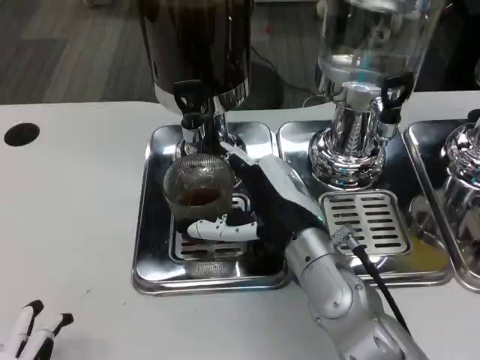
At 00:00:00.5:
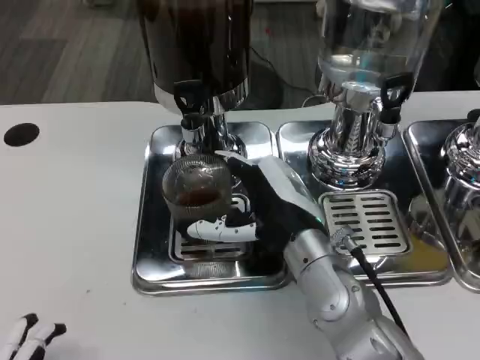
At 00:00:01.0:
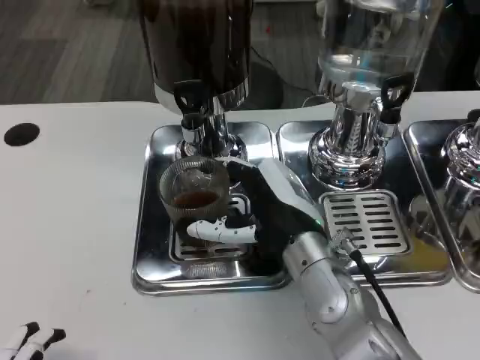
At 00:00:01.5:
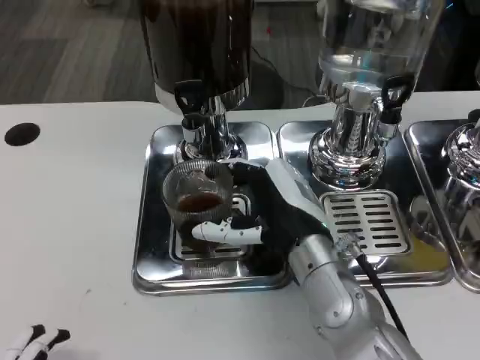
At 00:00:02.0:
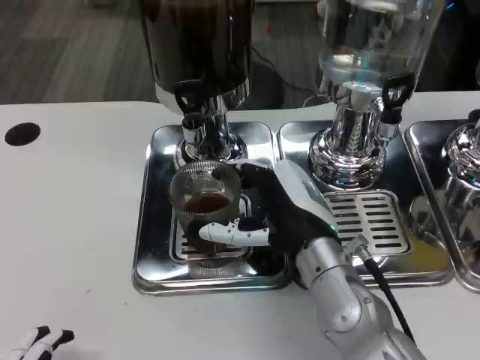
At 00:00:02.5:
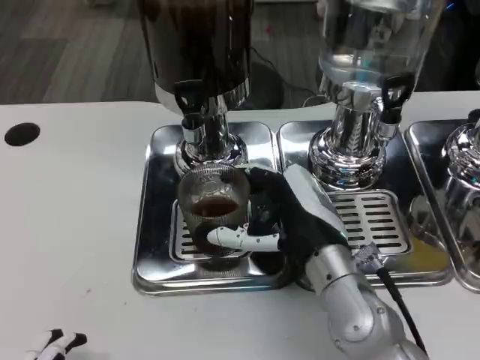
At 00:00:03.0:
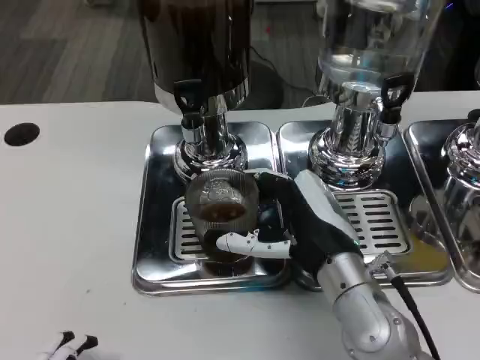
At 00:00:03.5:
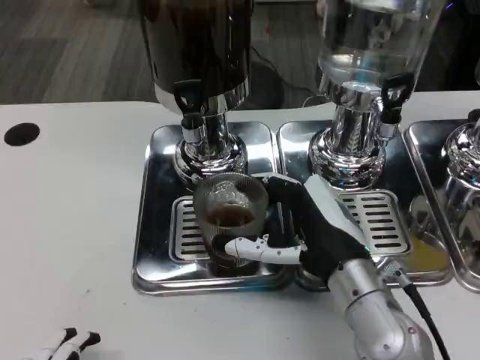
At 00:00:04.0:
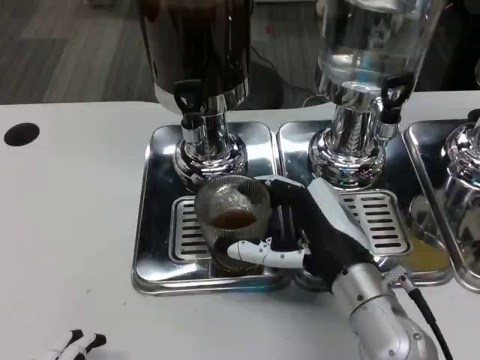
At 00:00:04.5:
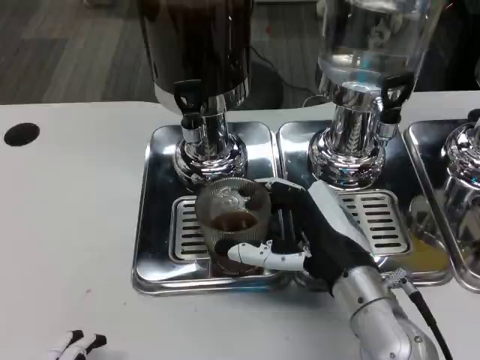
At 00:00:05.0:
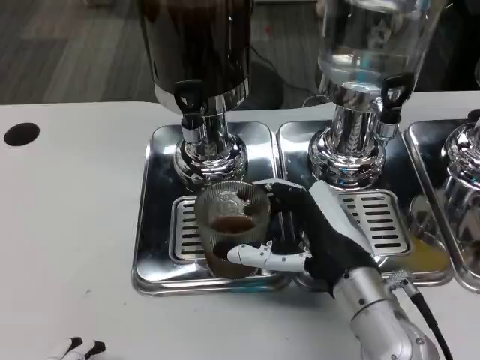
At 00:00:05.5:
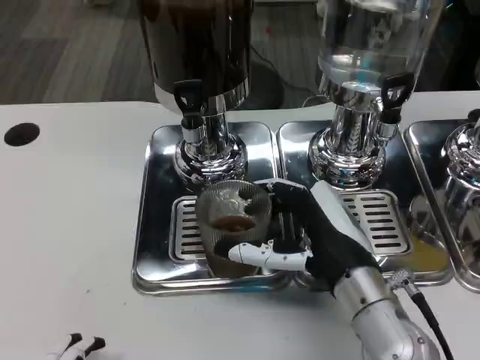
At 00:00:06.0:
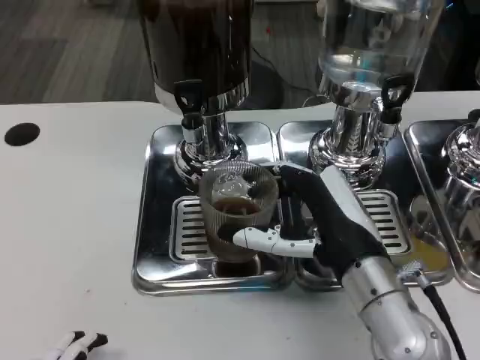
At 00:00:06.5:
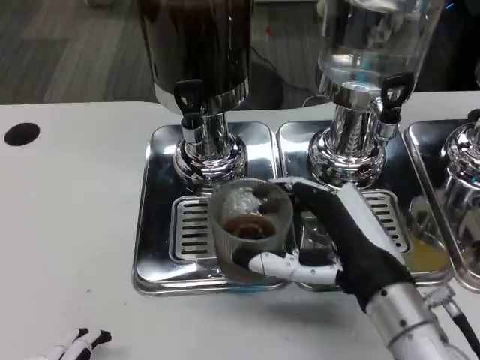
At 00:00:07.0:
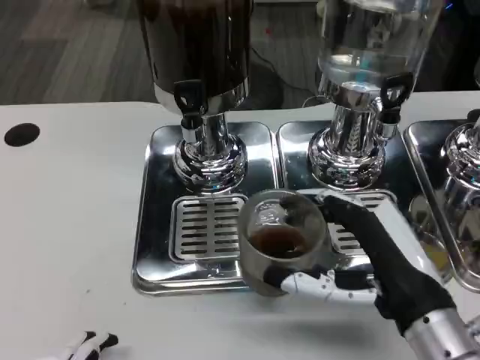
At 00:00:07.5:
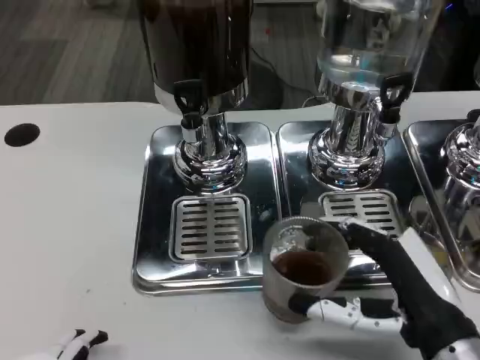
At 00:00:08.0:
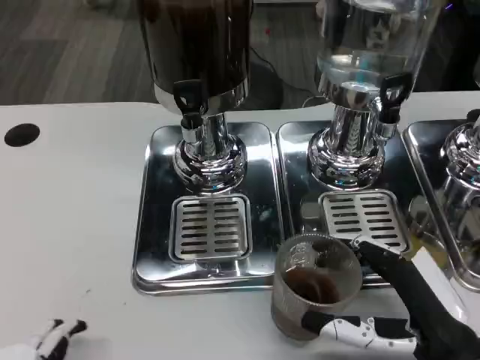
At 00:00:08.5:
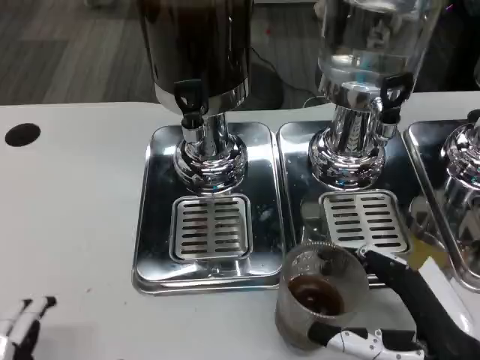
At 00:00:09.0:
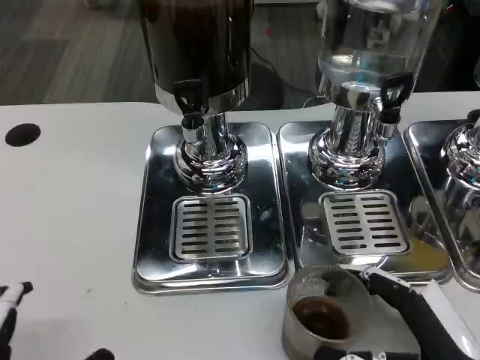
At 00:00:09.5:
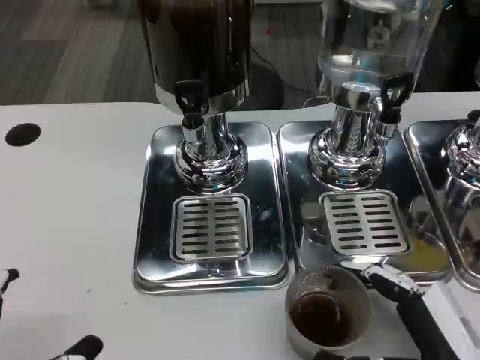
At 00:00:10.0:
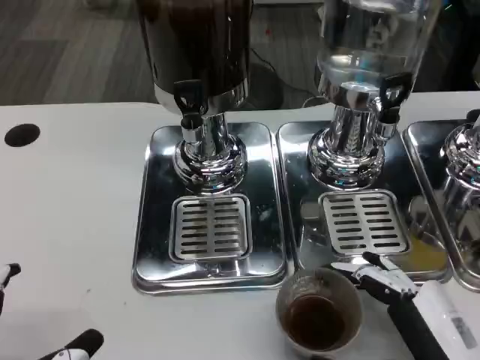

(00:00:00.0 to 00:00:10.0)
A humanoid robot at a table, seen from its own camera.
Task of the whole recording: Grasp the cup under the faucet to collect the drink, then remove the cup.
00:00:00.0 - 00:00:02.0: Both hands stay put.
00:00:02.0 - 00:00:06.0: The hands make only small movements.
00:00:06.0 - 00:00:08.0: The right hand shifts approximately 10 cm to the right and backward.
00:00:08.0 - 00:00:10.0: The hands move only a little.

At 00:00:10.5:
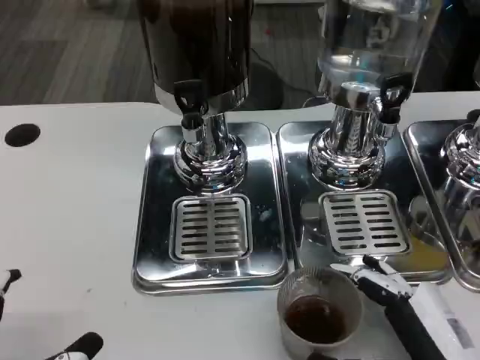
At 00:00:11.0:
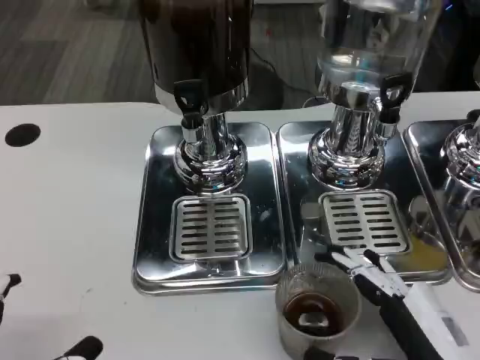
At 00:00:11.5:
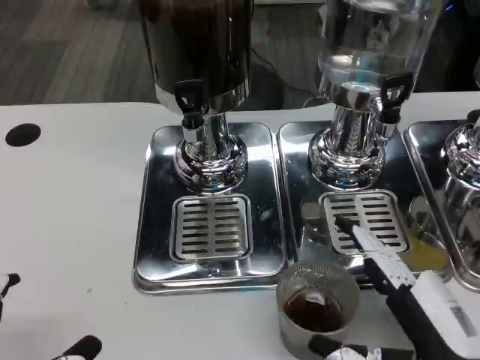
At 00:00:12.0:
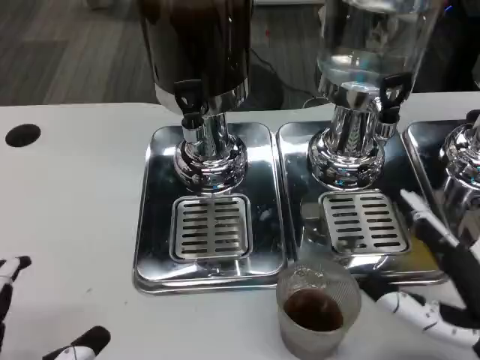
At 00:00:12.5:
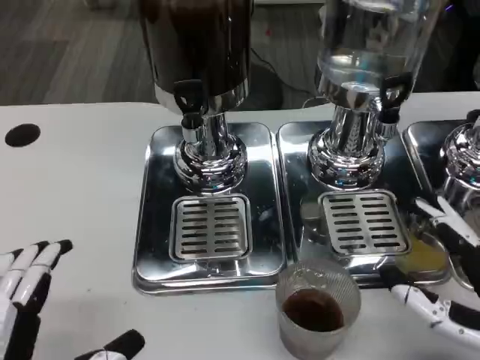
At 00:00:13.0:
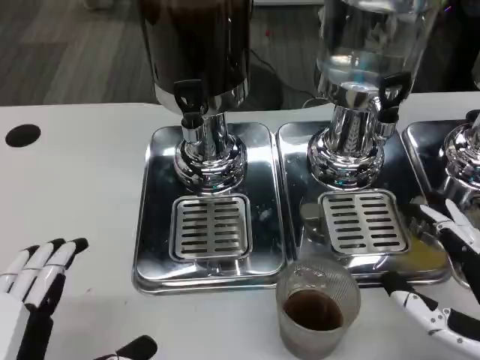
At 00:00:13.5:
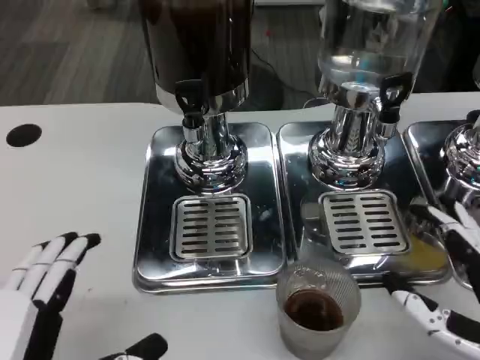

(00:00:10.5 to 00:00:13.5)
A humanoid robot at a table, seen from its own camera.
Task of the whole recording: Grasp the cup under the faucet to collect the drink, then remove the cup.
00:00:10.5 - 00:00:12.0: The right hand moves upward, about 5 cm.
00:00:12.0 - 00:00:13.5: The hands make only small movements.

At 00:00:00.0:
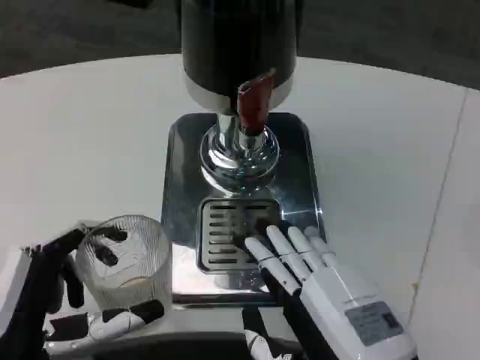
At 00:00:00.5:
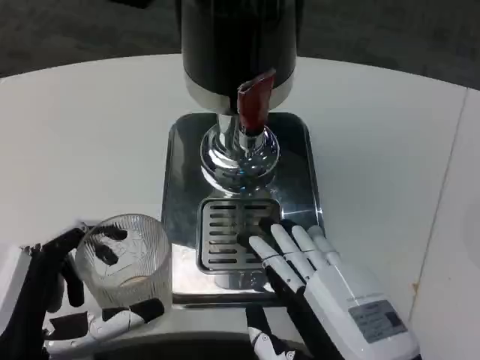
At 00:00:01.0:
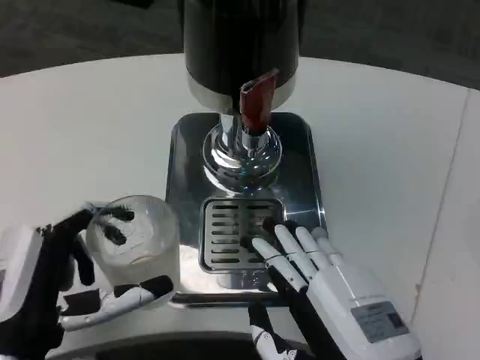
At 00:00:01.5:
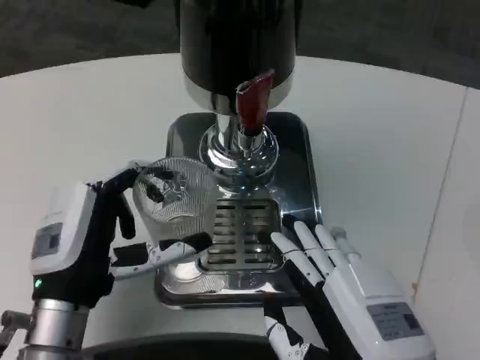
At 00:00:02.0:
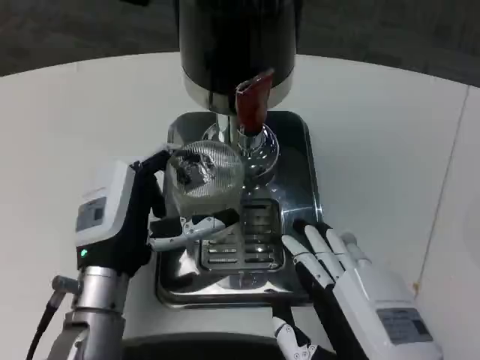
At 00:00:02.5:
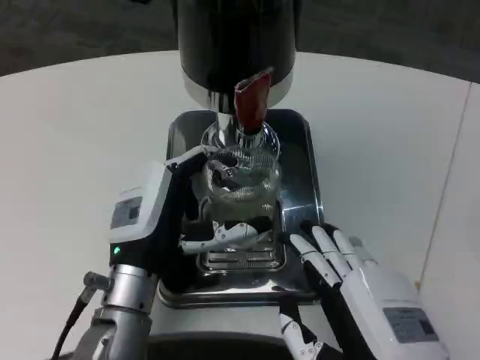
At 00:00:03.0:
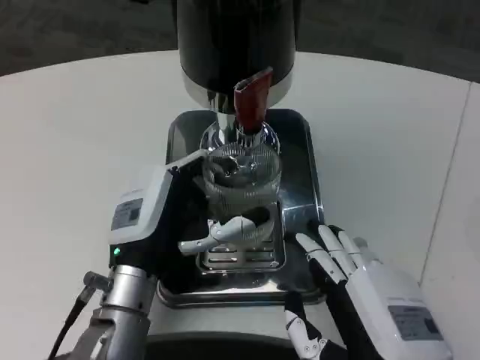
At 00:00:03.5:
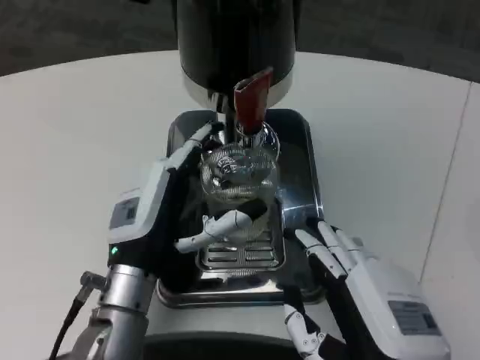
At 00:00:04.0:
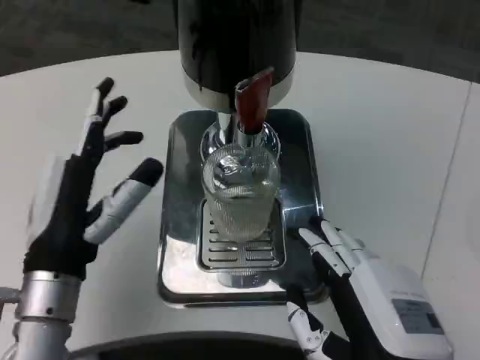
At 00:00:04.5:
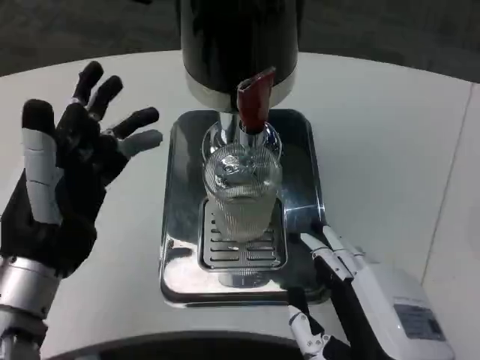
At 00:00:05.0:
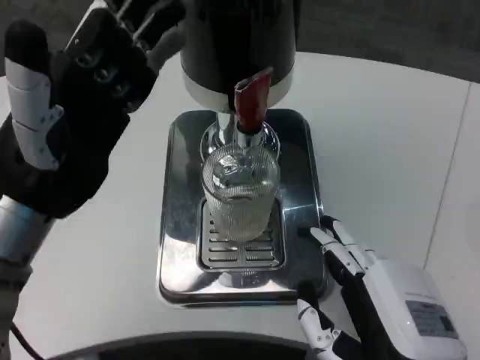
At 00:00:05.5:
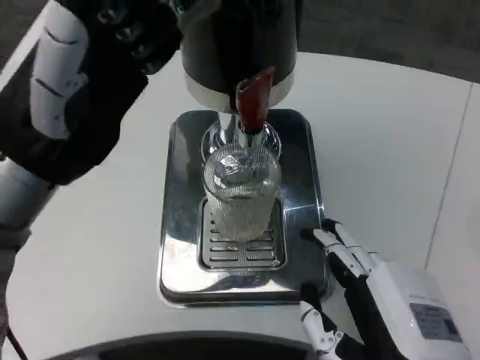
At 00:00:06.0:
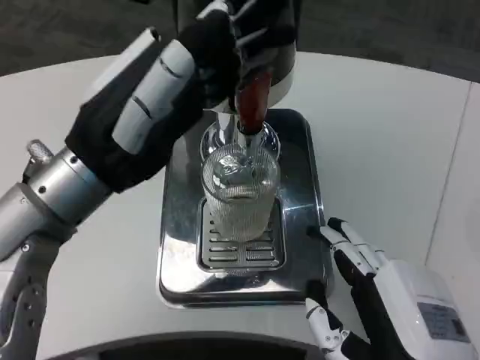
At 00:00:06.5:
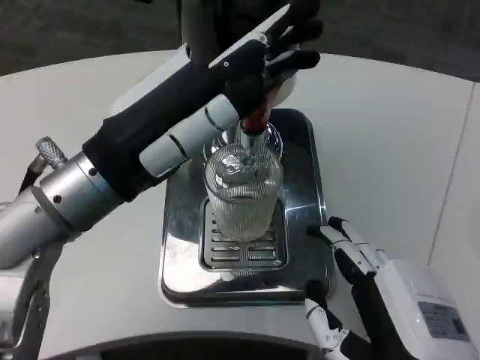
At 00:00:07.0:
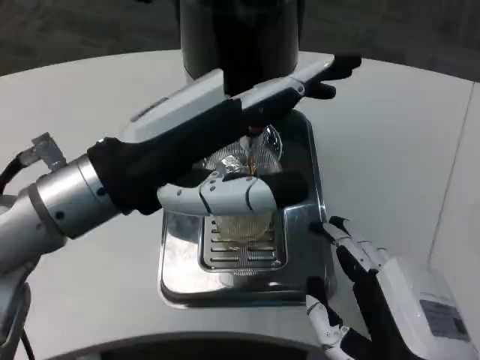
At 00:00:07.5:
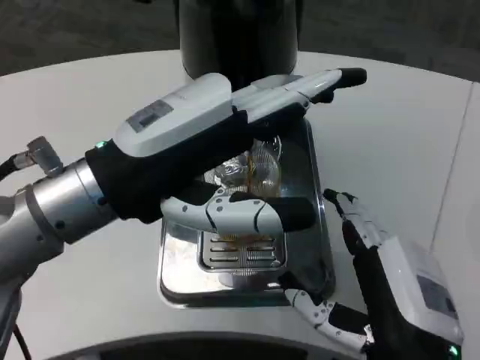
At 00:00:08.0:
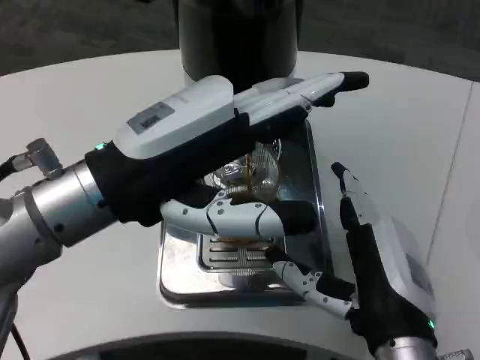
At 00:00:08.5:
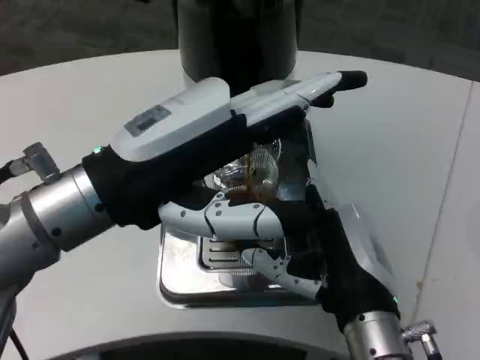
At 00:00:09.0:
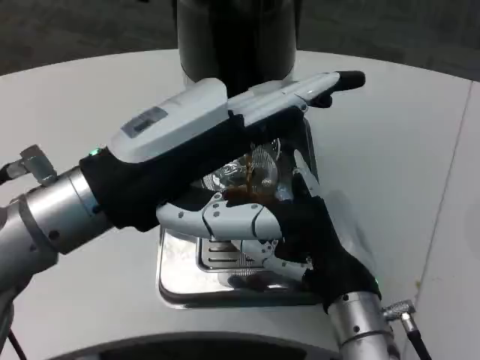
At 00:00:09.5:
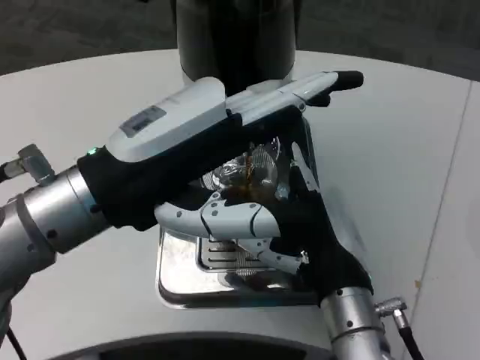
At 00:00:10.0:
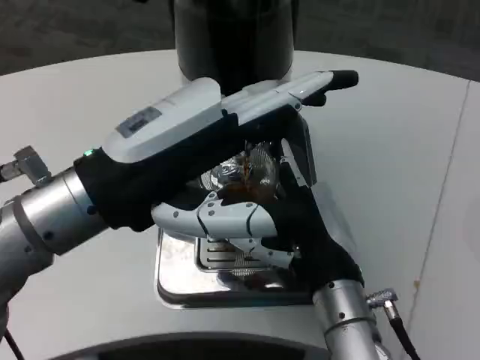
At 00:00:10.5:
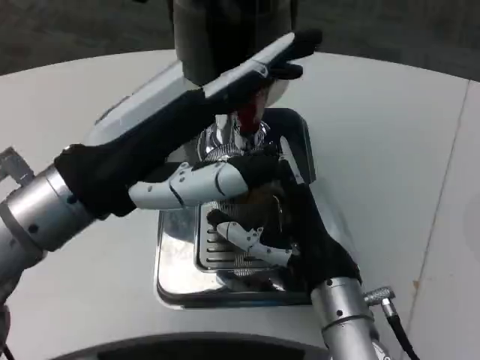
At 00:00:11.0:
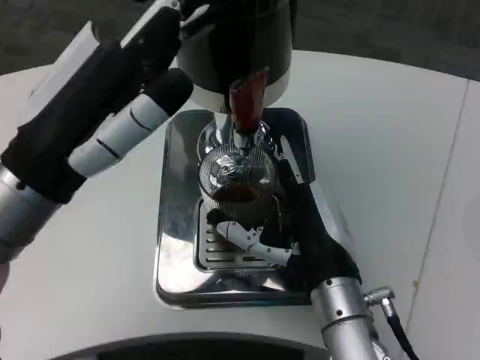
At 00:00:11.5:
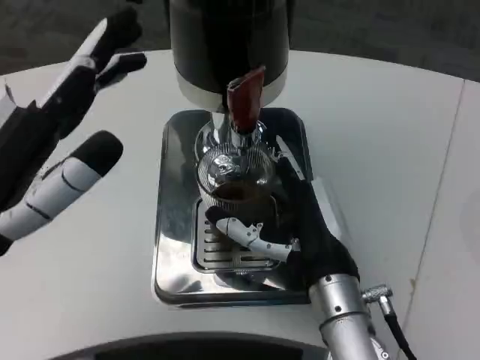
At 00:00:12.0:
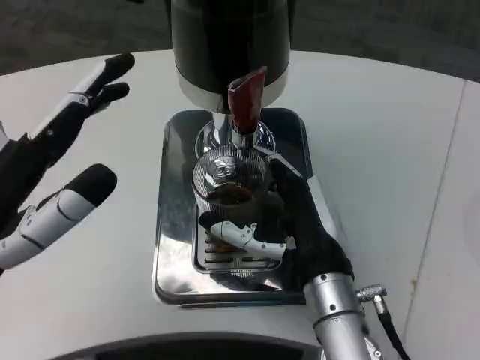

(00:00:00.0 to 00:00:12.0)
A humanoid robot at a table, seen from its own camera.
Task of the whole recording: Grasp the cup under the faucet to collect the drink, then remove the cup.
00:00:00.0 - 00:00:02.0: The left hand travels forward and to the right by roughly 15 cm.
00:00:02.0 - 00:00:04.0: The left hand changes place by some 5 cm.
00:00:04.0 - 00:00:06.0: The left hand travels upward by some 10 cm.
00:00:06.0 - 00:00:08.0: The right hand goes approximately 5 cm forward.
00:00:08.0 - 00:00:10.0: The right hand travels forward by about 5 cm.
00:00:10.0 - 00:00:12.0: The left hand travels to the left, backward and downward by roughly 10 cm.
